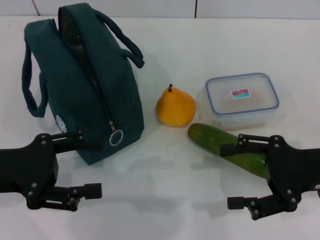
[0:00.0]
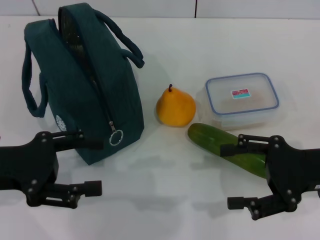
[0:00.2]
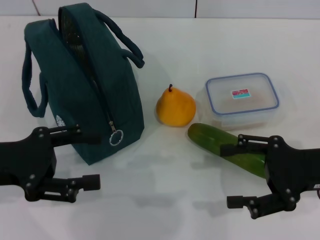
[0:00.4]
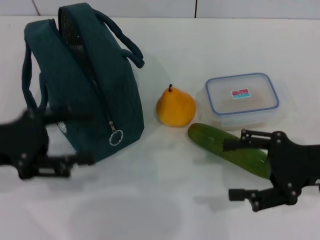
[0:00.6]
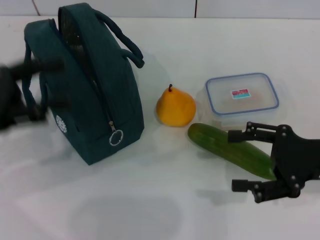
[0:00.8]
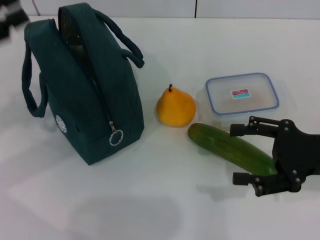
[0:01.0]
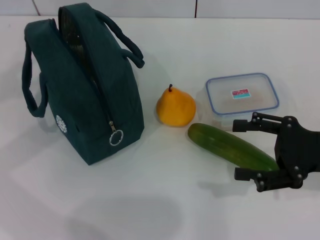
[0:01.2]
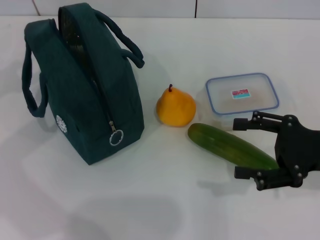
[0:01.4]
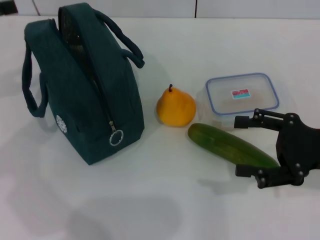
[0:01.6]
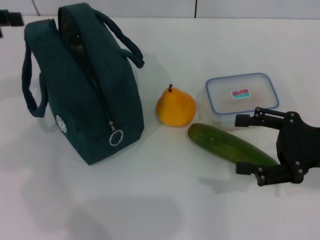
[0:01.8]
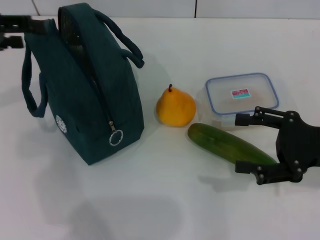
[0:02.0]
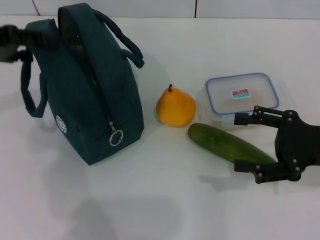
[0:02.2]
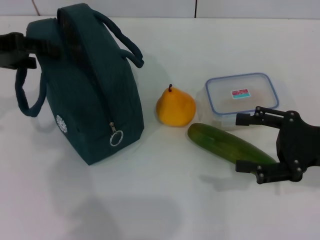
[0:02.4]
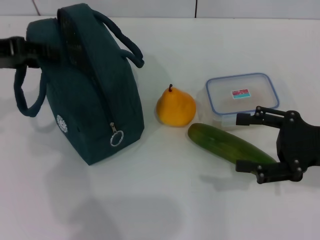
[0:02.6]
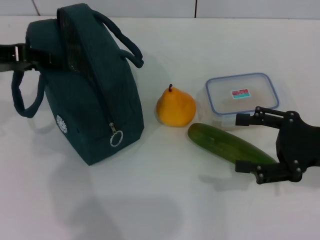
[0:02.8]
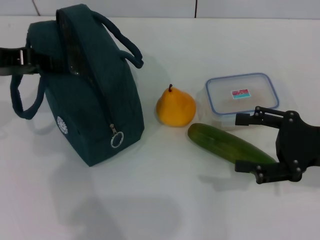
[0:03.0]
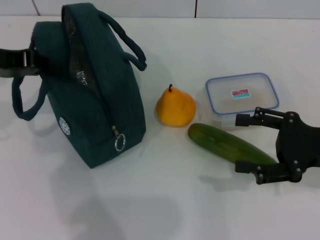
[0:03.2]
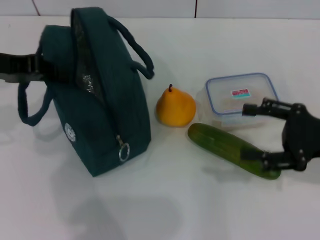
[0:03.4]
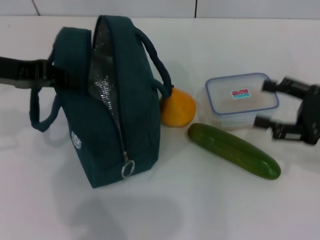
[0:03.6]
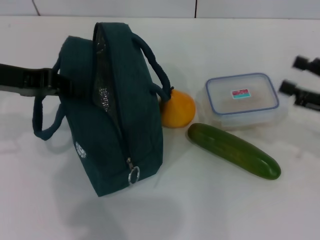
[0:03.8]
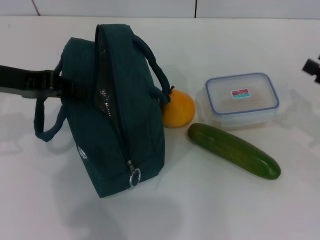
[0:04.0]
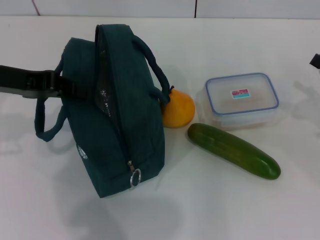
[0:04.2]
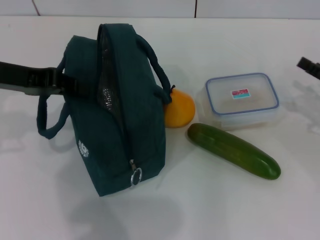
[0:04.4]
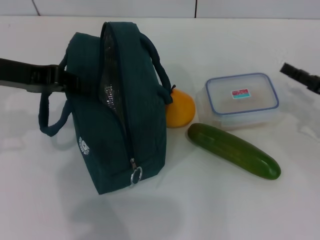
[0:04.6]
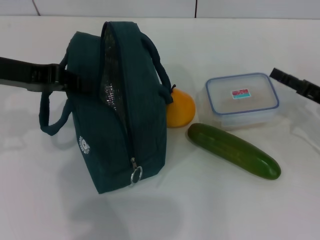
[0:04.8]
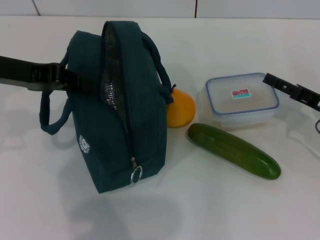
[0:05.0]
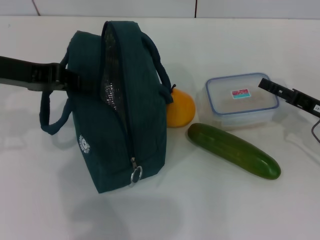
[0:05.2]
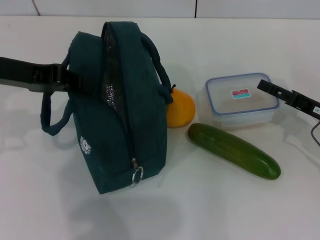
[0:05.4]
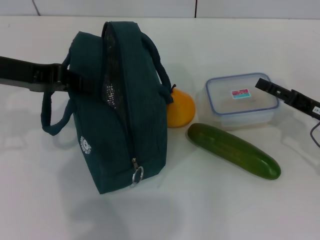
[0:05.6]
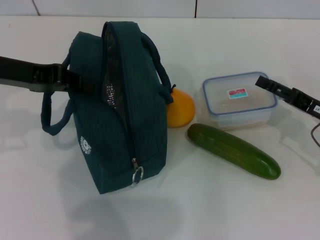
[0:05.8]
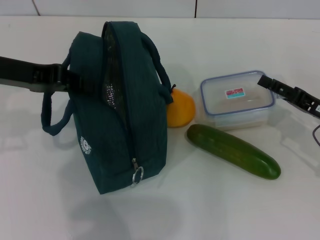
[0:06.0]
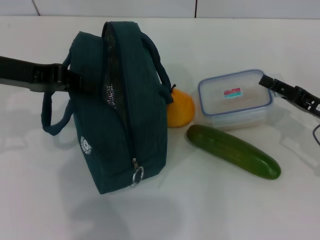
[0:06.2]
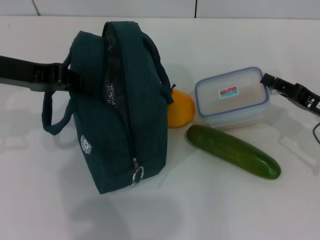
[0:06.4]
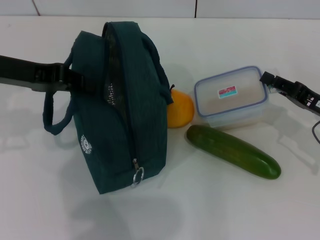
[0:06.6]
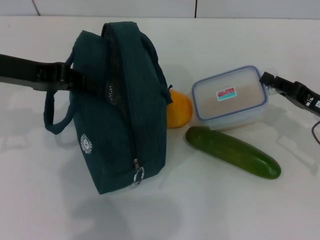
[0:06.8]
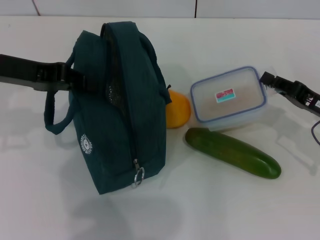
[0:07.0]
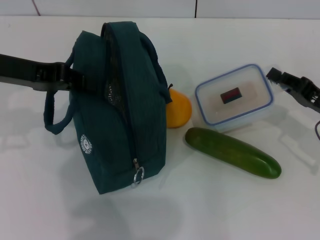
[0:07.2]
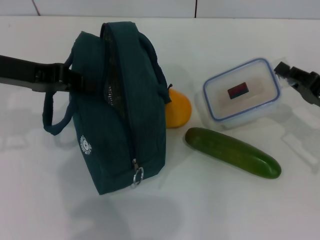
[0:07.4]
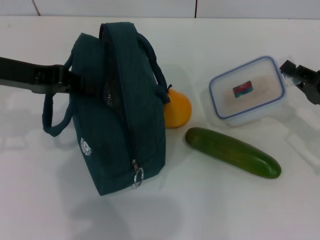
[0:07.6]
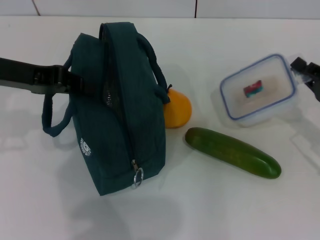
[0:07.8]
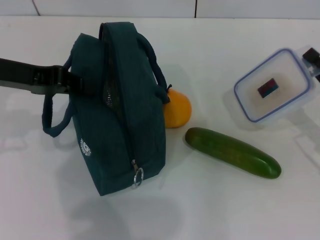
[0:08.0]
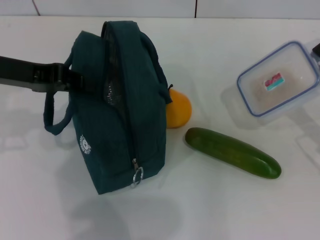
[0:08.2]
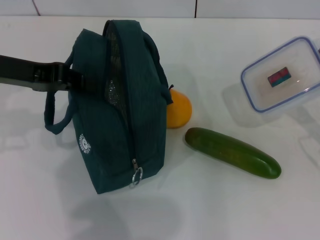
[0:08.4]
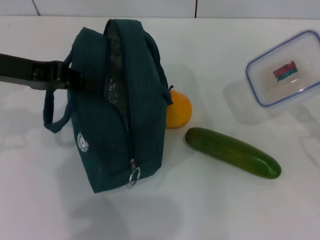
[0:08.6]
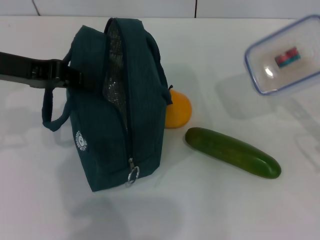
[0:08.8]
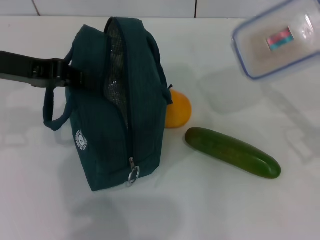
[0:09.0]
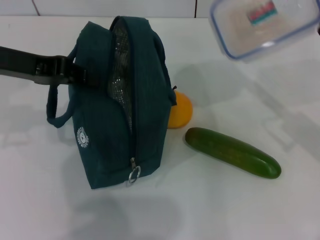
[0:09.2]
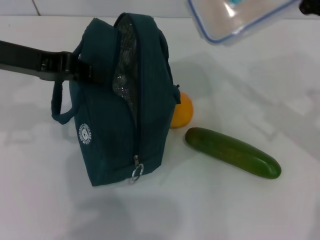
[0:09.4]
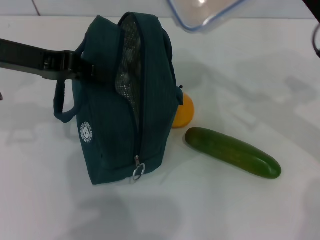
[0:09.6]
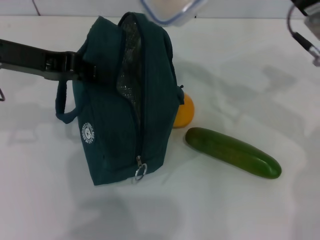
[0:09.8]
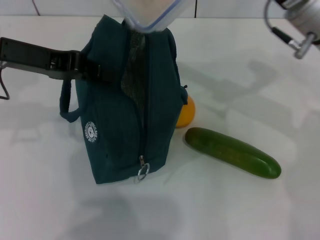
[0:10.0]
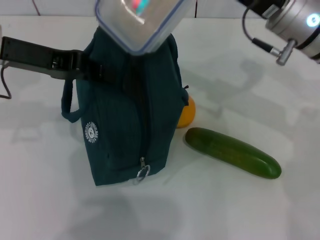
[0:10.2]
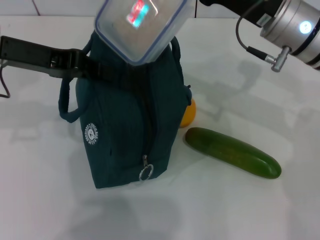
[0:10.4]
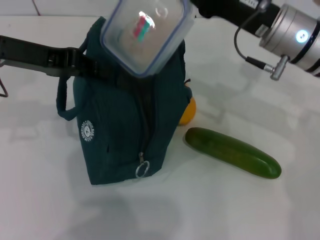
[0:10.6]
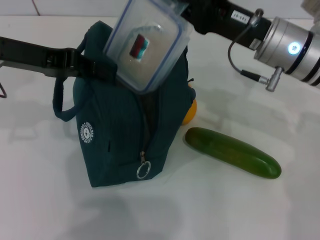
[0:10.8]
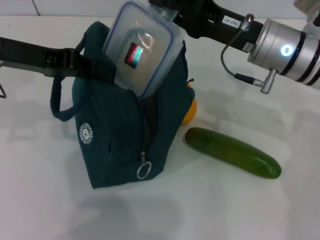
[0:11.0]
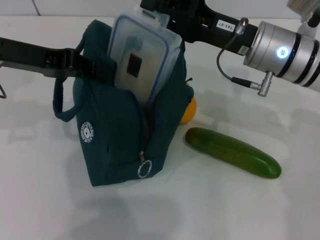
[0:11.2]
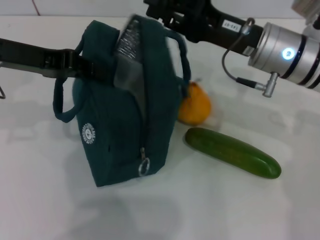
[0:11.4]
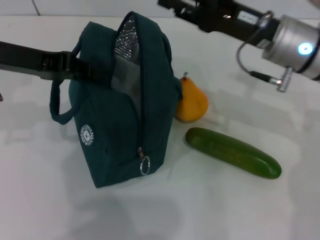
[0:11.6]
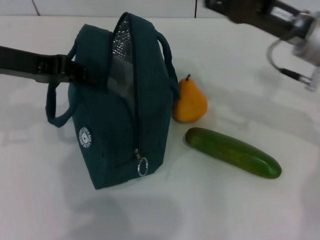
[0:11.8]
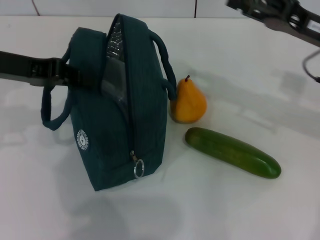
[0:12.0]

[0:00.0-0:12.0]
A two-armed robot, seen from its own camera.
Step, 0:00.0 to 0:03.8: Hold the lunch bag with your left hand.
Step, 0:04.0 to 0:06.6: Pick up the lunch box with your right hand.
Step, 0:07.0 to 0:11.6: Place the lunch box into the lunch bag with your right hand.
0:00.0 to 0:01.6: The left gripper travels forward, upward and to the left by some 15 cm.
0:01.6 to 0:03.0: The left gripper moves to the right, roughly 5 cm, and closes its fingers.
0:03.0 to 0:04.4: The left gripper closes up. Meanwhile the right gripper travels to the right and forward by some 10 cm.
0:04.4 to 0:06.0: The right gripper shifts by about 5 cm.
0:06.0 to 0:07.6: The right gripper closes its fingers.
0:09.0 to 0:10.4: The right gripper travels to the left, forward and upward by some 20 cm.
0:10.4 to 0:12.0: The right gripper travels to the right by approximately 10 cm, and opens its fingers.

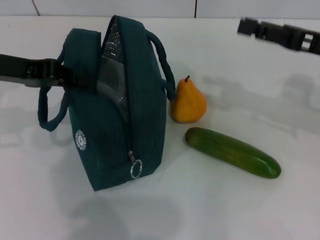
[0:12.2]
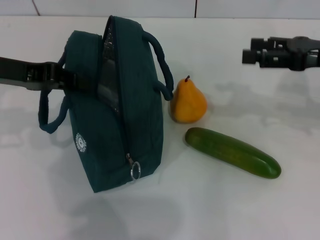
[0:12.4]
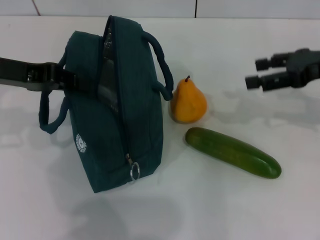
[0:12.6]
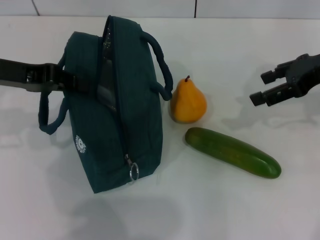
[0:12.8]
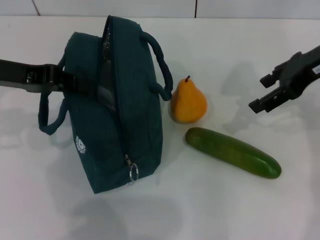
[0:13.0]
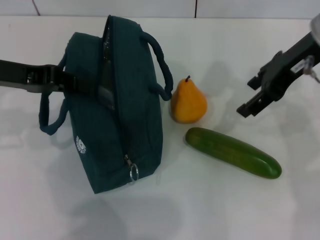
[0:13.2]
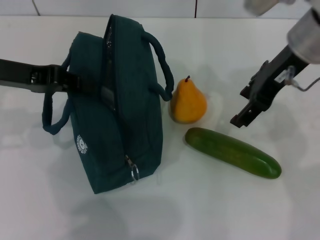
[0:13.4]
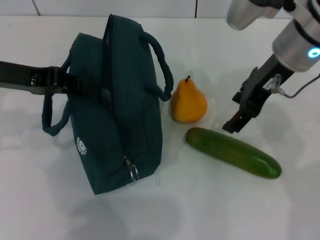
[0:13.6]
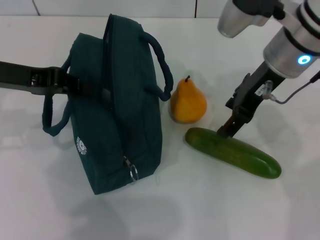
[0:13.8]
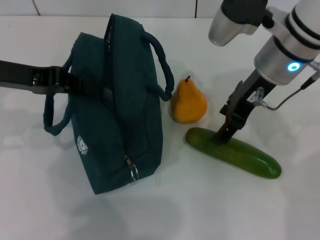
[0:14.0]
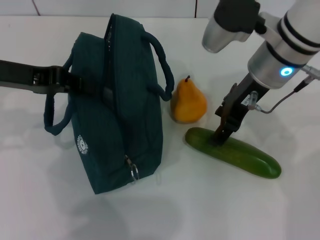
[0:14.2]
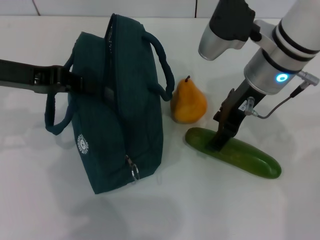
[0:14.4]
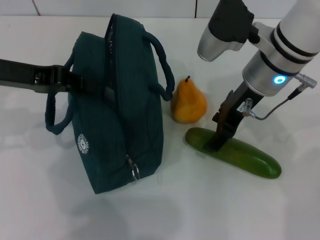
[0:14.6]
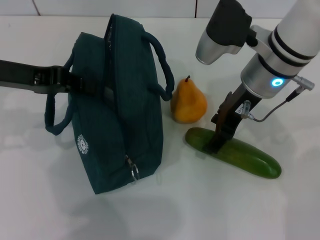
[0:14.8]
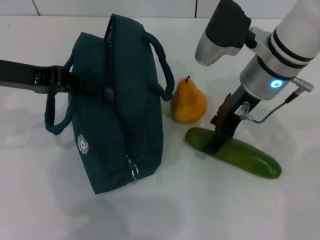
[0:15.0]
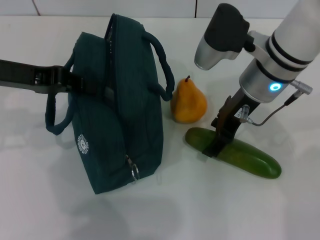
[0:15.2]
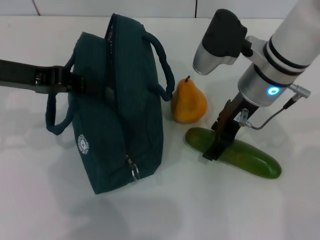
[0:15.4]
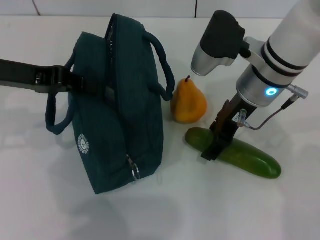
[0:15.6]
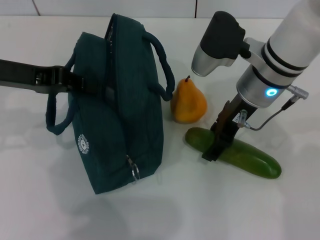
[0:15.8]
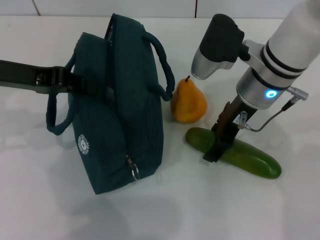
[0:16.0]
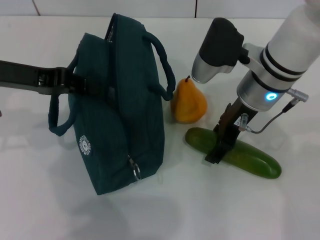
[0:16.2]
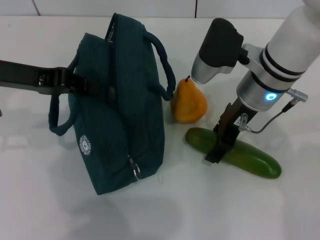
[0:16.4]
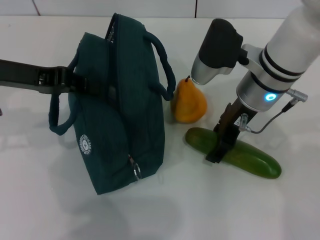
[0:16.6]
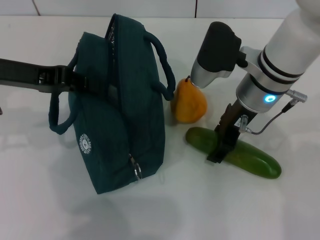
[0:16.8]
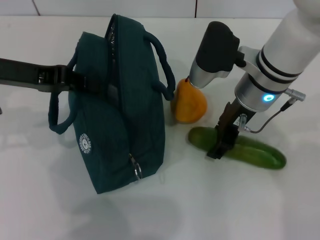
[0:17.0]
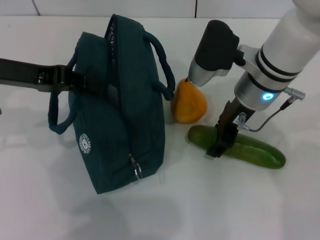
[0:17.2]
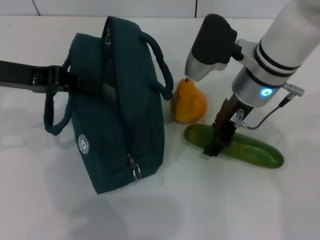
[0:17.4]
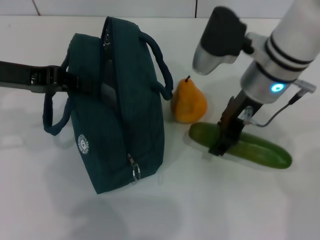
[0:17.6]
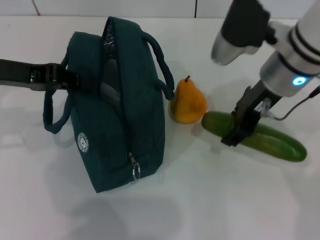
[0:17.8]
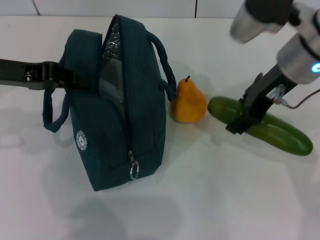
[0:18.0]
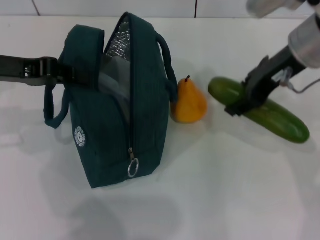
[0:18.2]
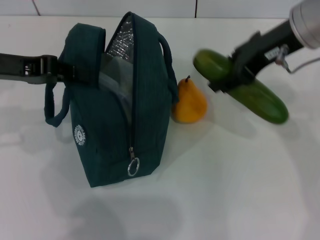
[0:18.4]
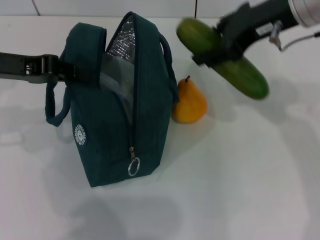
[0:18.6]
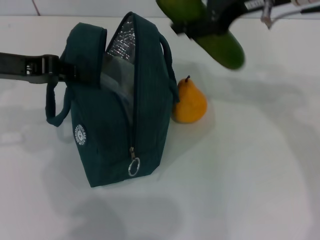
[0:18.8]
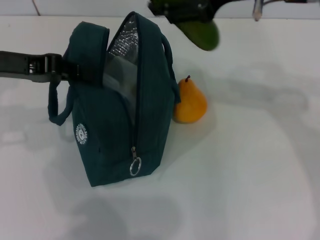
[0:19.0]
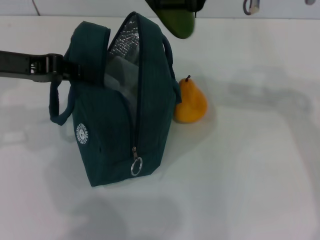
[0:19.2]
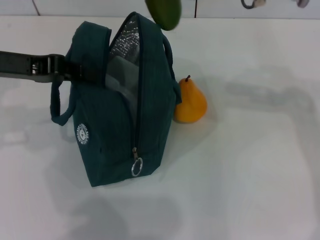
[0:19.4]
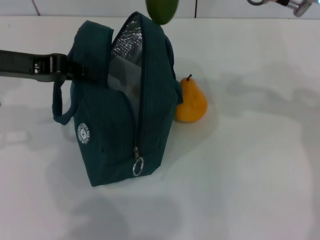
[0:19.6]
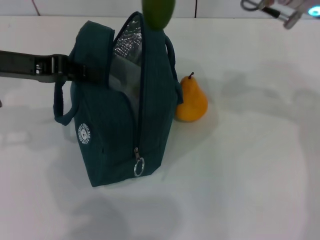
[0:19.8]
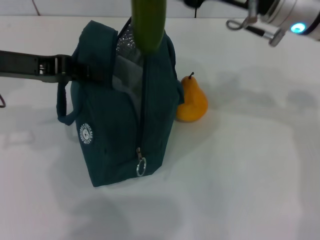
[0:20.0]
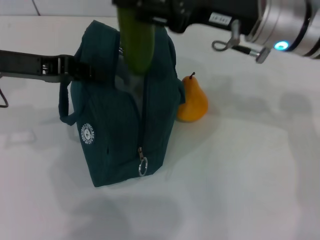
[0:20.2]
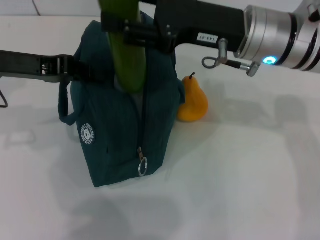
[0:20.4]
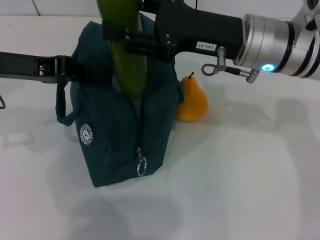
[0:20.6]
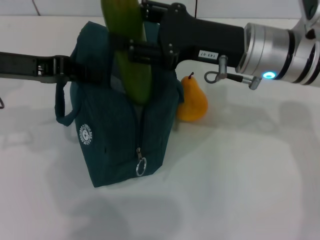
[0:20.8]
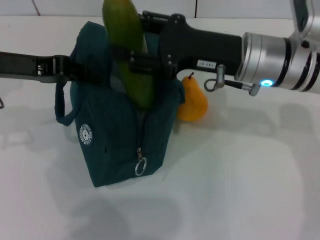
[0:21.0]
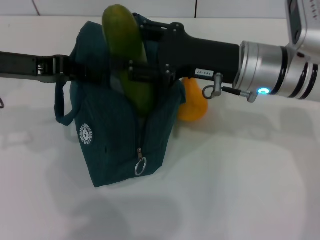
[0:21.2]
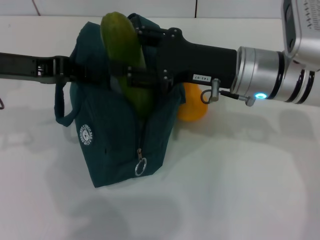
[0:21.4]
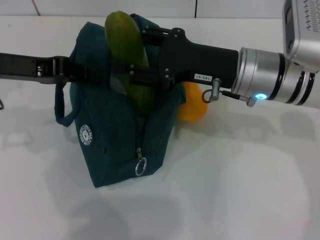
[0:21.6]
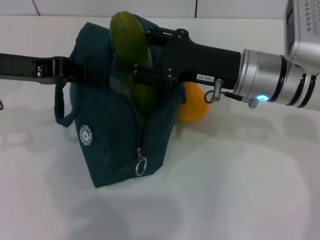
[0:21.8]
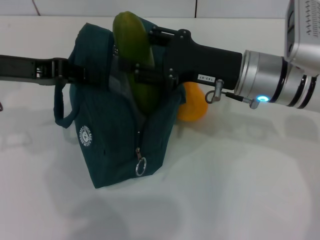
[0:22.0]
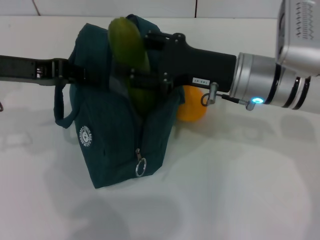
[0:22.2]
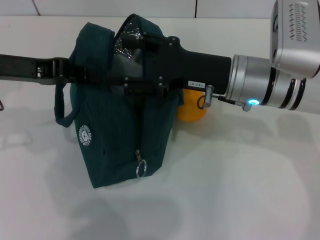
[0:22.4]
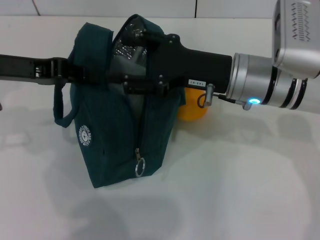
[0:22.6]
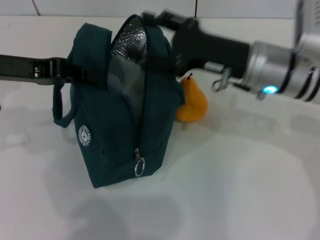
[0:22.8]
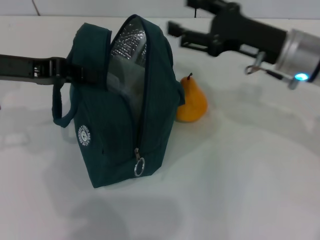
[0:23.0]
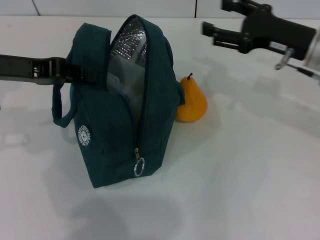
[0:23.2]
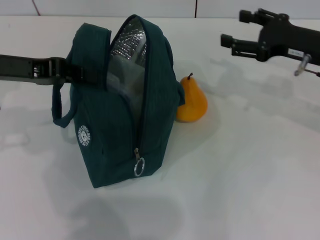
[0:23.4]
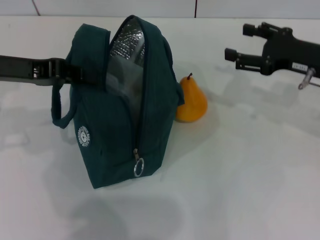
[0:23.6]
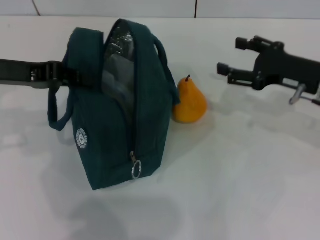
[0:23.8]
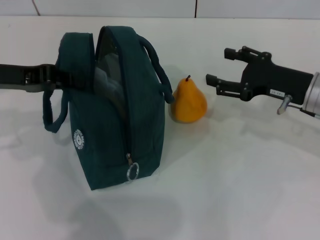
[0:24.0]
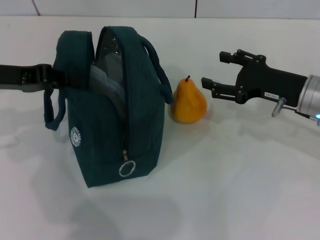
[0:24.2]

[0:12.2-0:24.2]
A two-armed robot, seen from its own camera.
Step, 0:12.2 to 0:17.0: Pick up the cucumber with your right hand.
Step, 0:17.2 to 0:22.6: Put the cucumber into the lunch bag with your right hand.
0:12.2 to 0:13.8: The right gripper moves to the left, approximately 15 cm.
0:13.8 to 0:15.2: The grippers move only a little.
0:15.2 to 0:16.6: The grippers move only a little.
0:16.6 to 0:18.2: The right gripper goes roughly 10 cm upward and to the right.
0:19.8 to 0:21.2: The right gripper moves downward, approximately 10 cm.
0:21.2 to 0:22.6: The grippers make only small movements.
0:22.6 to 0:24.2: The right gripper shifts approximately 10 cm to the right.
